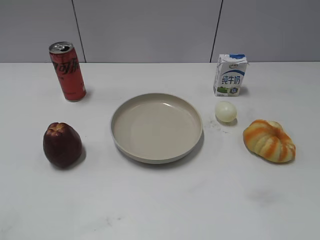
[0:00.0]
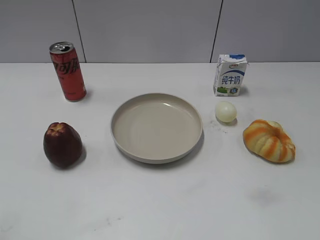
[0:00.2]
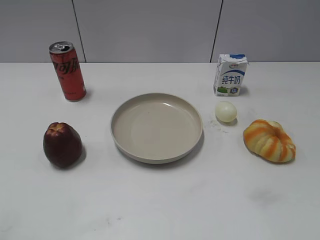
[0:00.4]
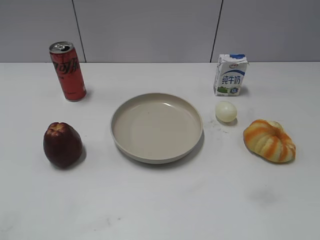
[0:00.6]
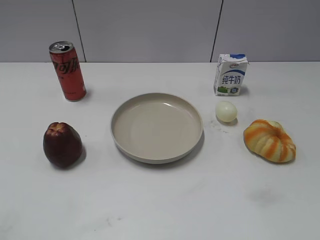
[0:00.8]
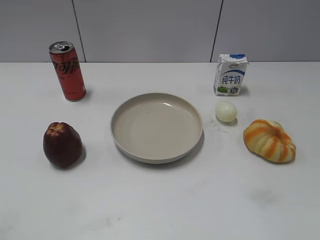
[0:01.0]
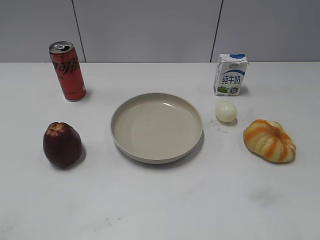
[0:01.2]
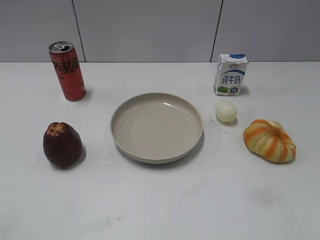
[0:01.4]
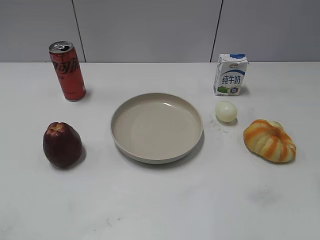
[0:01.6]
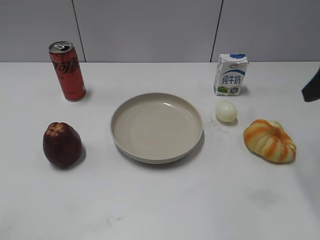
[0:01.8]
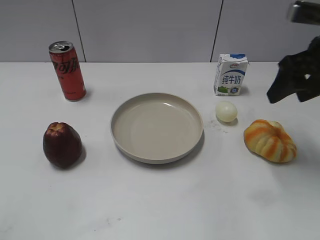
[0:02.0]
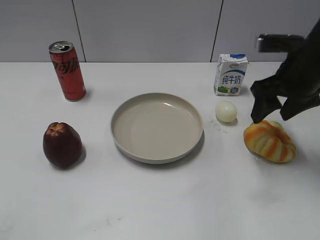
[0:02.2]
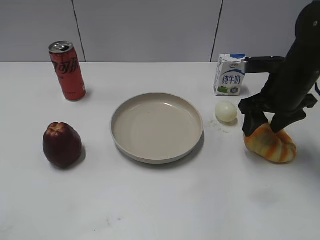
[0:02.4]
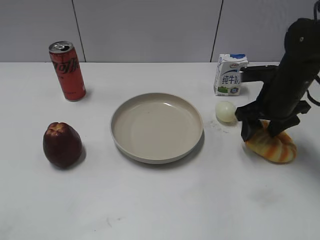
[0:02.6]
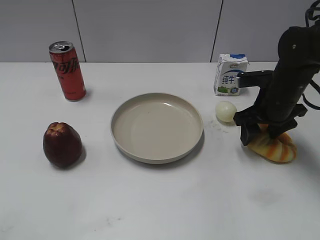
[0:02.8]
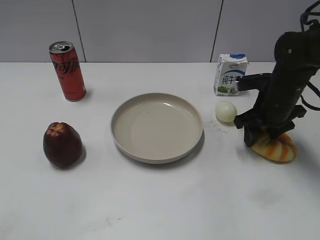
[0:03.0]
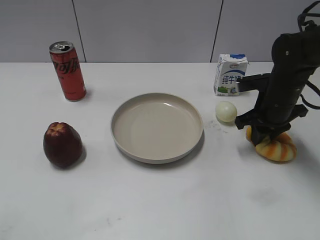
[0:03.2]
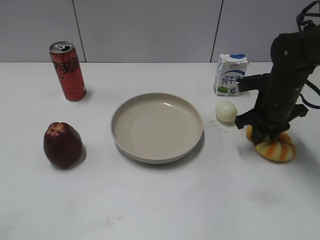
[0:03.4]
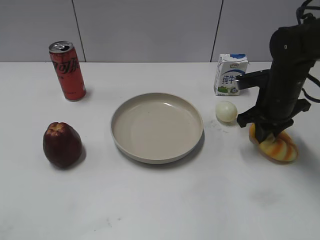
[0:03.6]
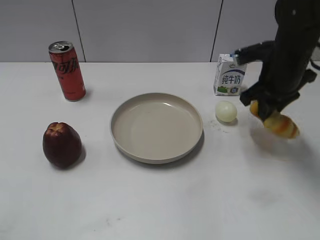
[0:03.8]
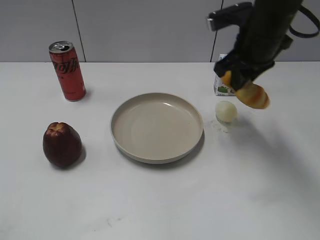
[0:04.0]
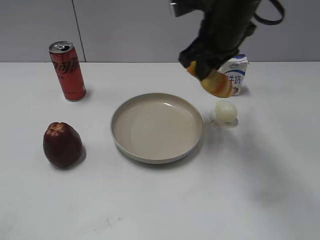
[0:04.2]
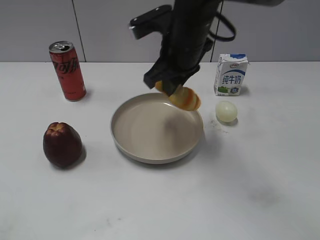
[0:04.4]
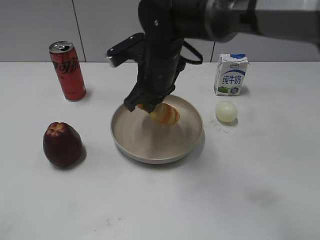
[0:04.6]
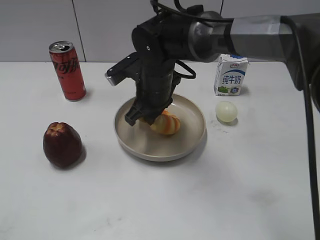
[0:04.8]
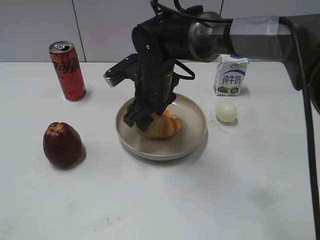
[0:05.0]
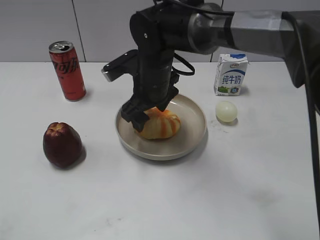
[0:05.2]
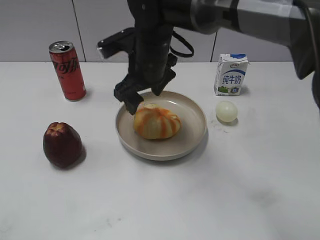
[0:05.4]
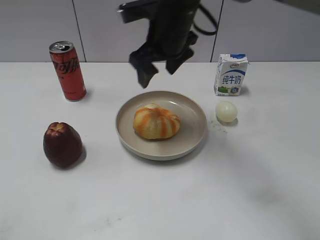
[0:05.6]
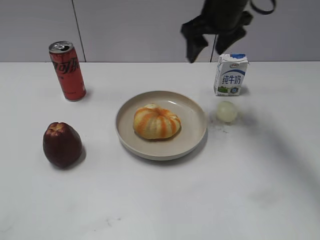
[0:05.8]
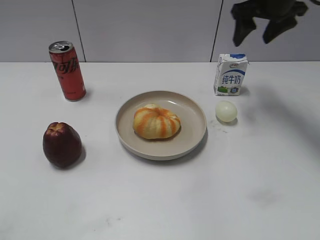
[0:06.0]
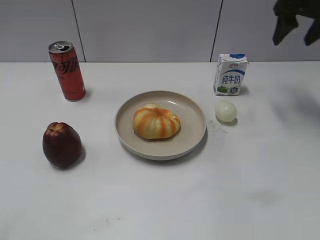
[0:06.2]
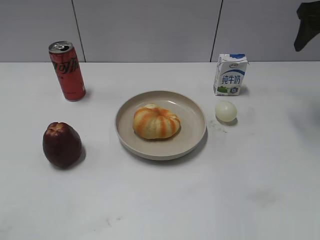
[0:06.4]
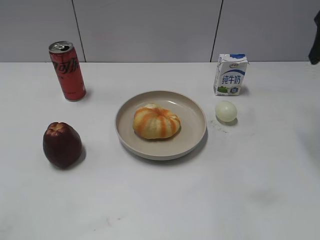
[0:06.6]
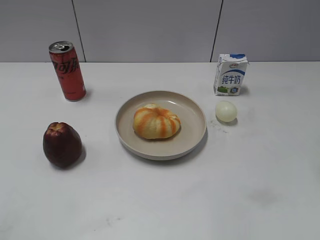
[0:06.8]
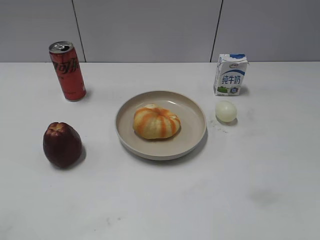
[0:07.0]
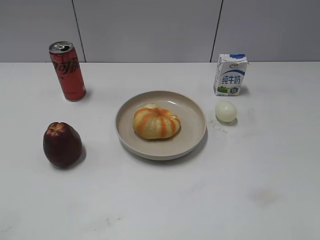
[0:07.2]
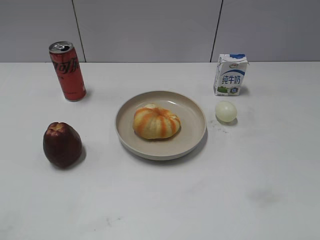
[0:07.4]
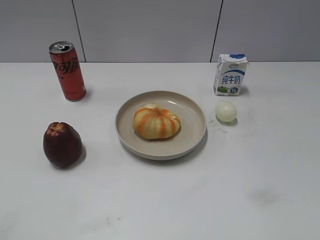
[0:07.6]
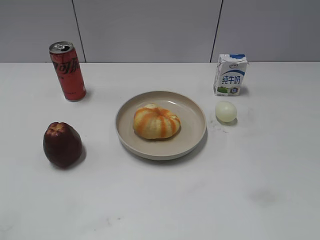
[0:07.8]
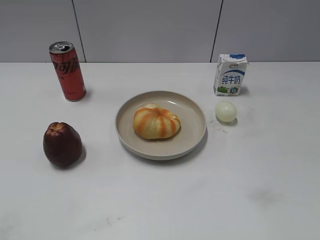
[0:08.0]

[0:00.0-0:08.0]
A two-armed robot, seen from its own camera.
Step, 0:01.0 to 0:03.4: Grasp the round bread with right gripper.
Step, 0:03.6 to 0:05.4: Place the round bread on the plate with right gripper.
0:01.6 to 0:03.2: The right gripper is displaced downward and forward by some 25 cm, and closes.
0:03.2 to 0:04.8: The right gripper moves to the left, roughly 25 cm.
0:04.8 to 0:06.4: The right gripper shifts approximately 35 cm to the right and upward, and opens.
0:06.4 to 0:08.0: The right gripper is displaced backward by some 40 cm.
